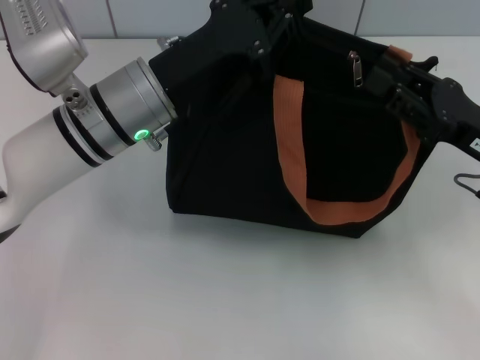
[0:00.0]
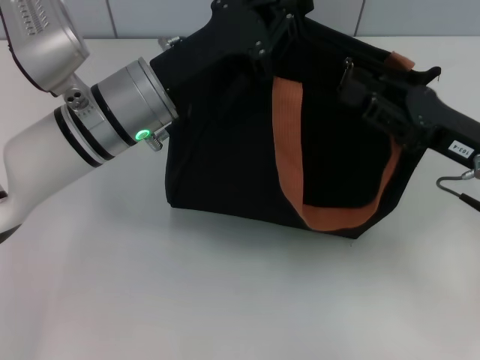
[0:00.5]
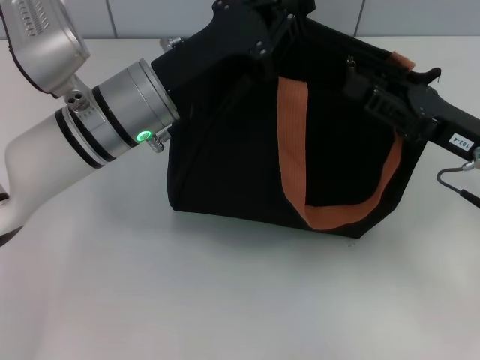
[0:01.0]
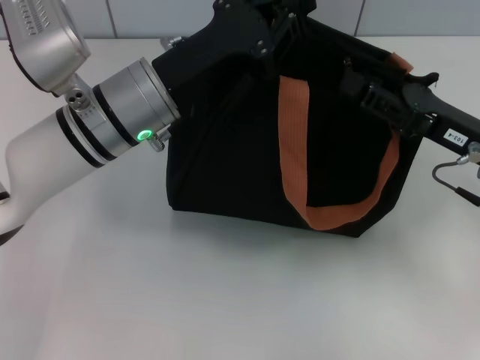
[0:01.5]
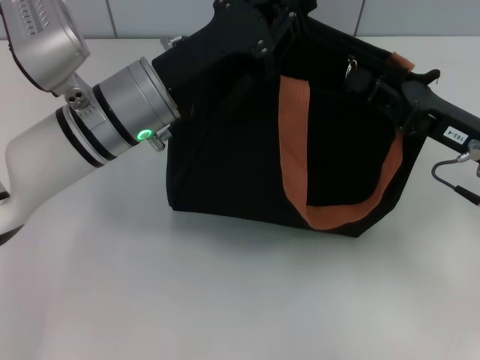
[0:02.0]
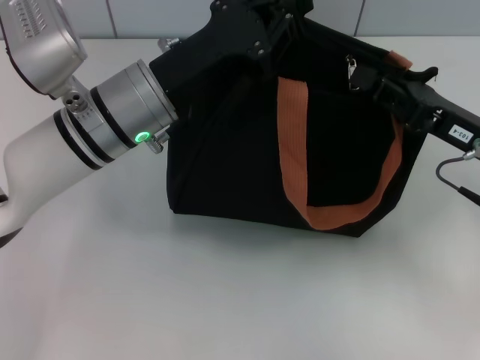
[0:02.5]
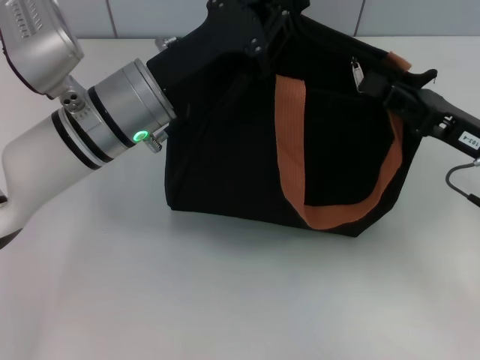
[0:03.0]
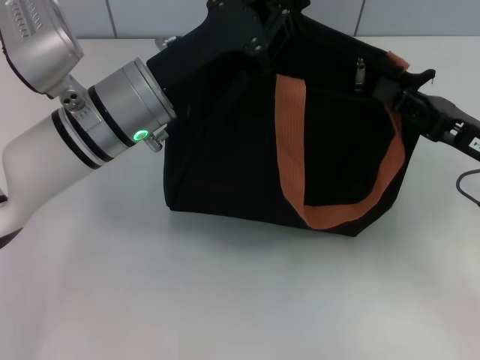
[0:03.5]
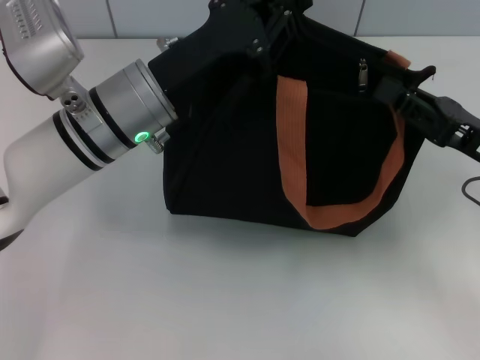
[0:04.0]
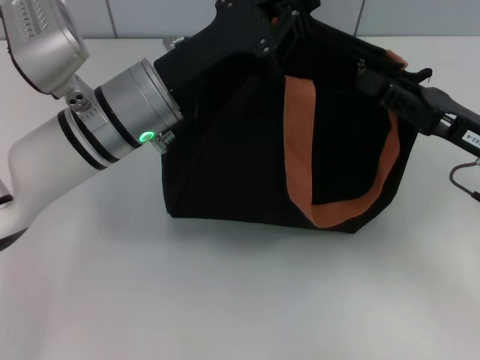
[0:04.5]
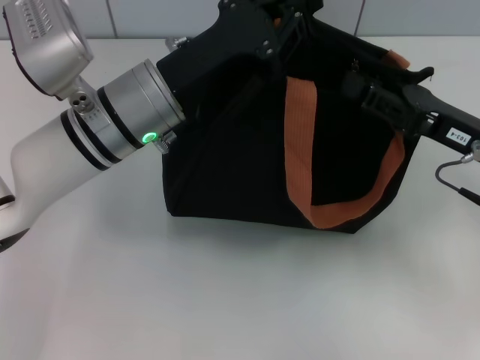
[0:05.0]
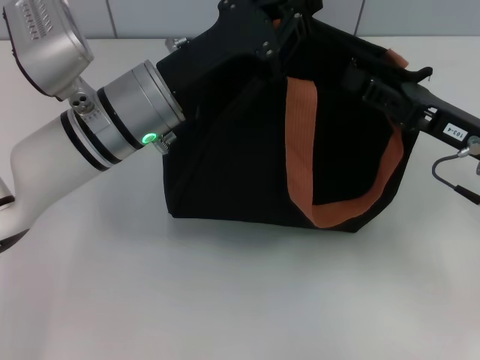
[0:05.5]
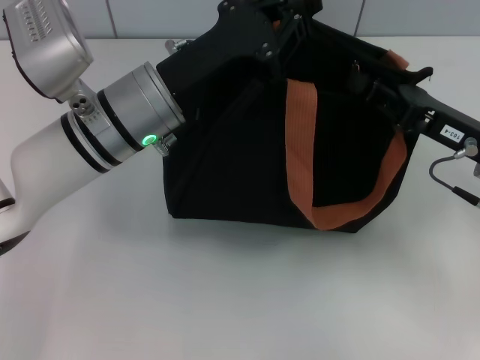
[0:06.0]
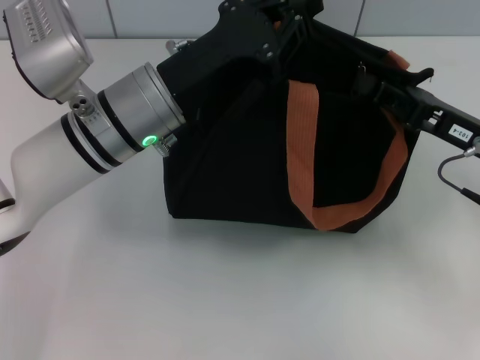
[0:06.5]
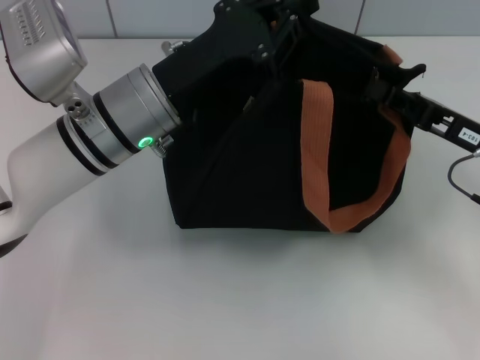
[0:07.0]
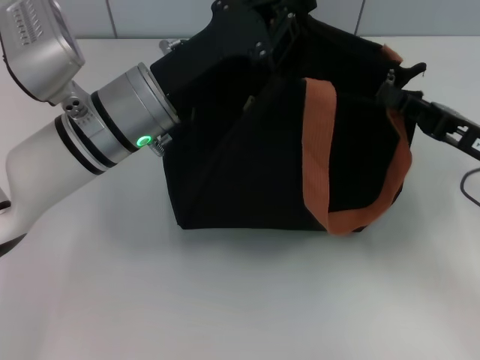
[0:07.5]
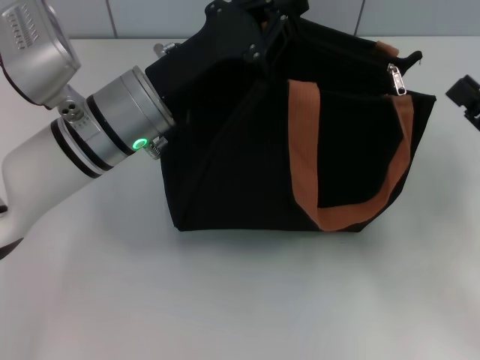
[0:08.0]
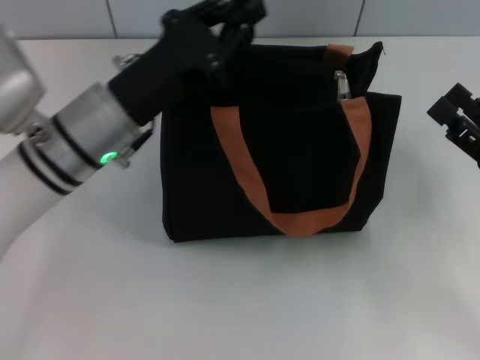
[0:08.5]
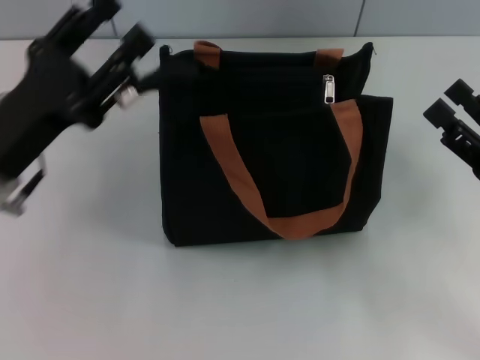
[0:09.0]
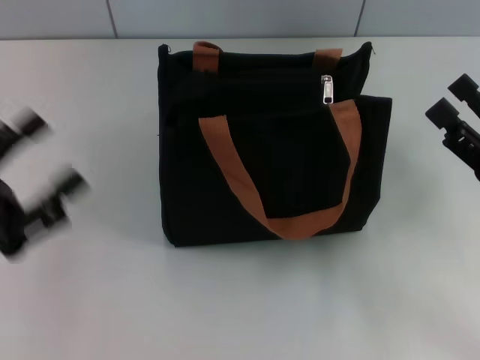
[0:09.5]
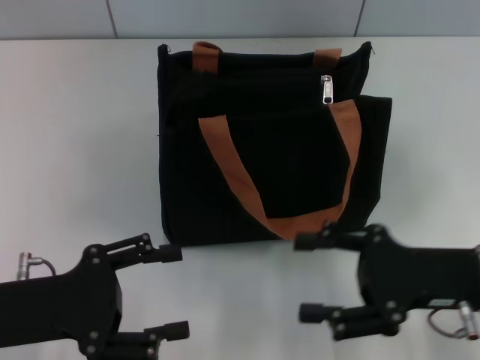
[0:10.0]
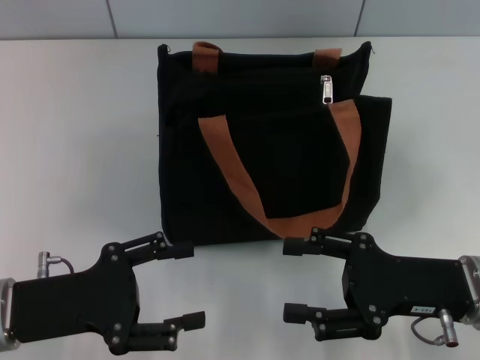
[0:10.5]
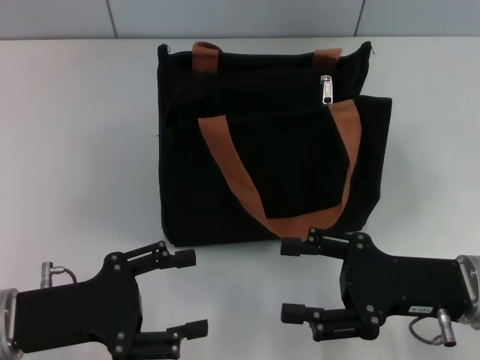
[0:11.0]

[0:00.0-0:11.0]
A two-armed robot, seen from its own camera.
Step, 0:00.0 to 0:07.5: Pull up the zipper with your right hand.
Step, 0:08.0 to 0:09.0: Grab the zipper with your left hand.
0:00.0 to 0:02.0: The right gripper closes its fingers.
0:02.0 to 0:03.5: There are only small adjustments of the grippers.
0:03.5 to 0:05.5: The right gripper opens its fingers.
0:05.5 to 0:07.5: The grippers move only a little.
0:07.5 to 0:09.0: The right gripper heads backward, covering approximately 5 cm, and opens its fingers. Meanwhile the left gripper is displaced to the left and backward by about 15 cm, and opens its fingers.
0:09.0 to 0:11.0: The right gripper moves to the left, approximately 5 cm, while the left gripper moves backward and downward, about 10 cm, and opens.
